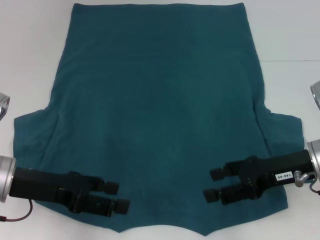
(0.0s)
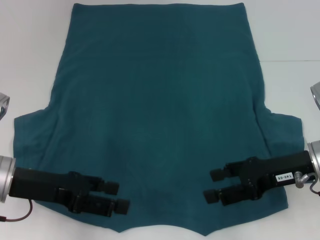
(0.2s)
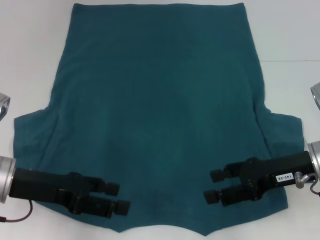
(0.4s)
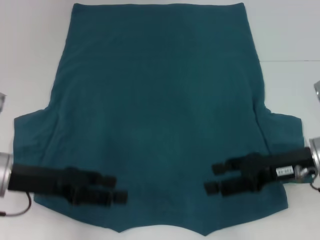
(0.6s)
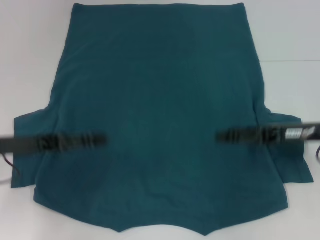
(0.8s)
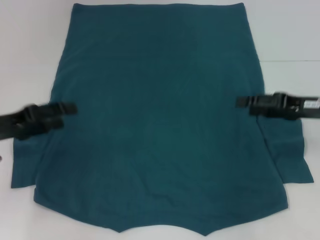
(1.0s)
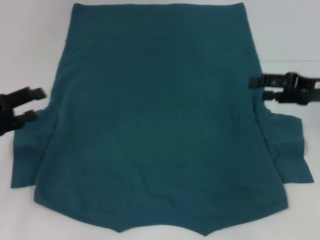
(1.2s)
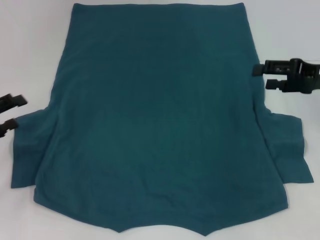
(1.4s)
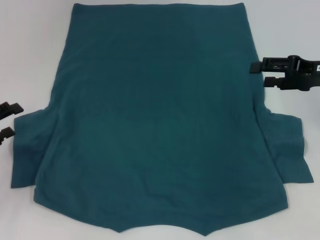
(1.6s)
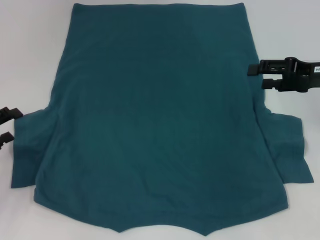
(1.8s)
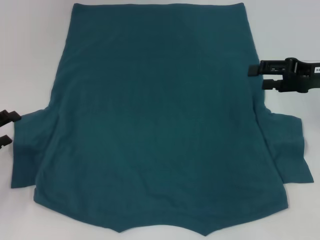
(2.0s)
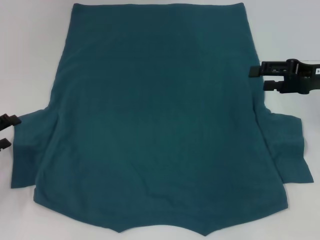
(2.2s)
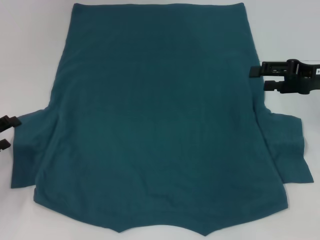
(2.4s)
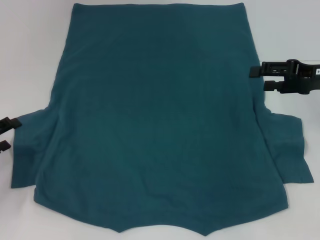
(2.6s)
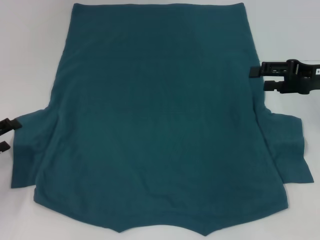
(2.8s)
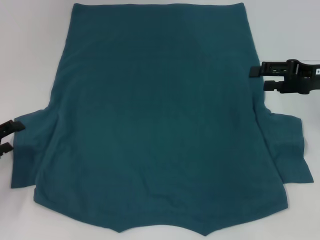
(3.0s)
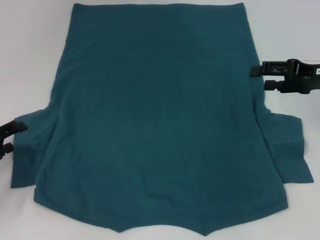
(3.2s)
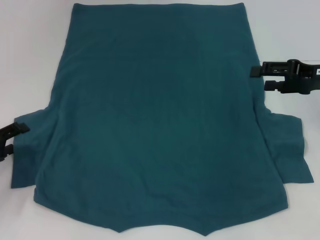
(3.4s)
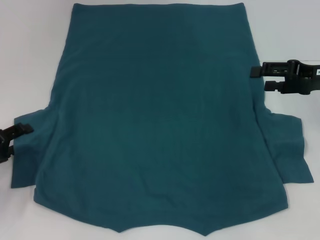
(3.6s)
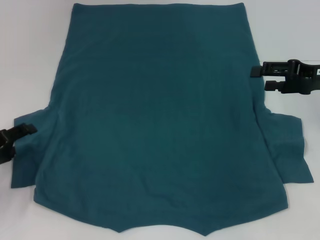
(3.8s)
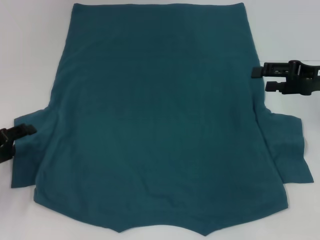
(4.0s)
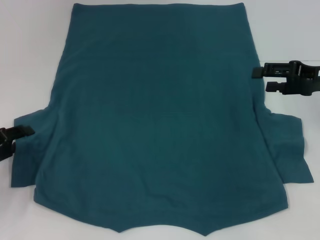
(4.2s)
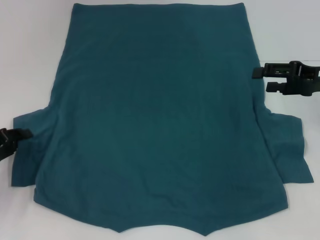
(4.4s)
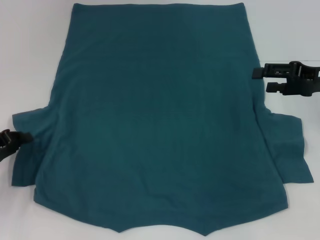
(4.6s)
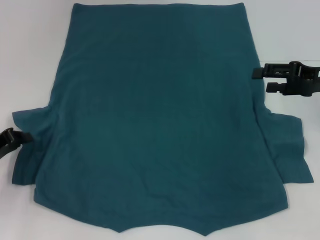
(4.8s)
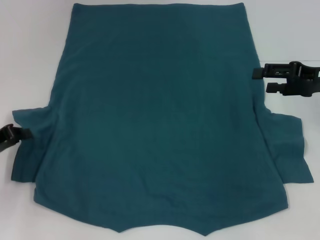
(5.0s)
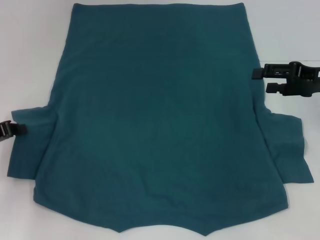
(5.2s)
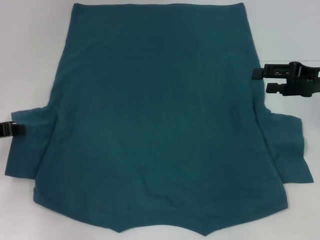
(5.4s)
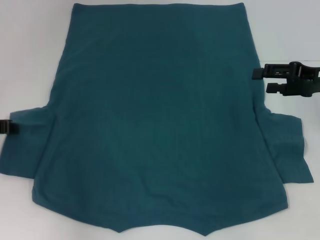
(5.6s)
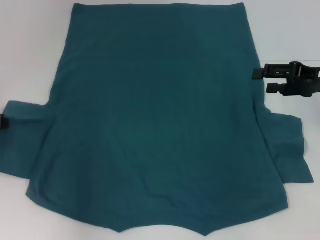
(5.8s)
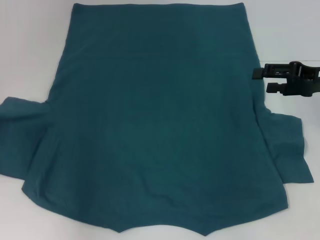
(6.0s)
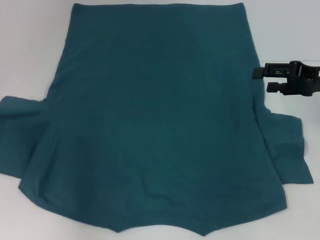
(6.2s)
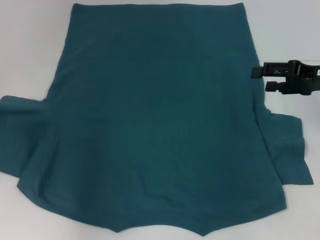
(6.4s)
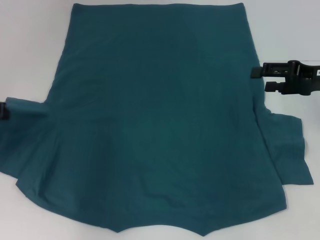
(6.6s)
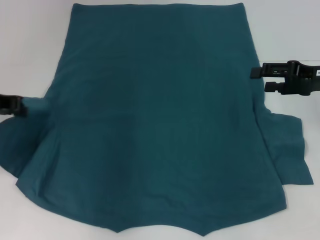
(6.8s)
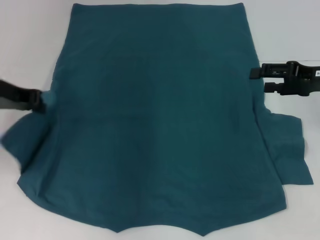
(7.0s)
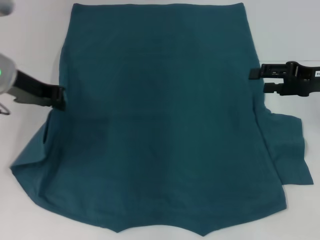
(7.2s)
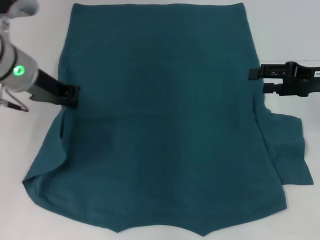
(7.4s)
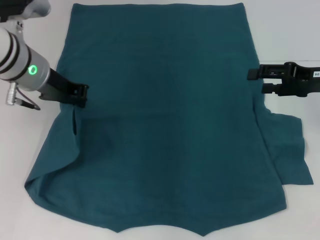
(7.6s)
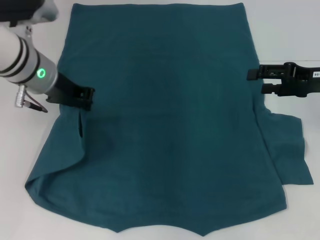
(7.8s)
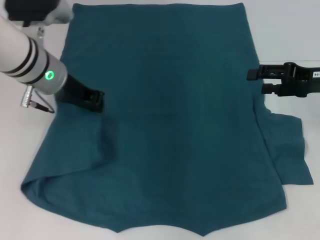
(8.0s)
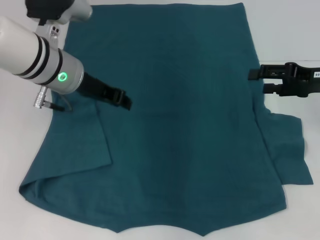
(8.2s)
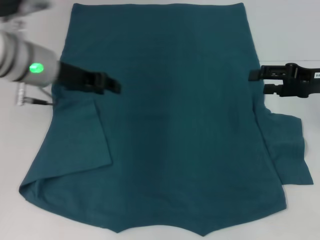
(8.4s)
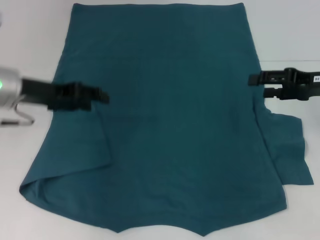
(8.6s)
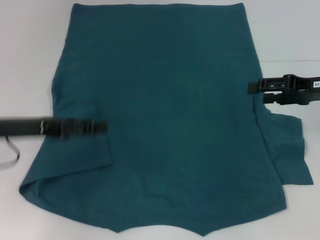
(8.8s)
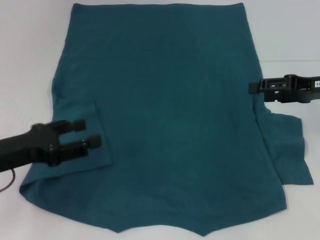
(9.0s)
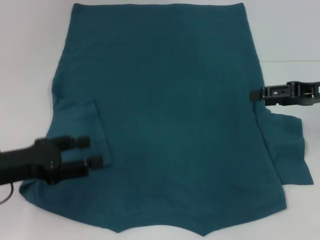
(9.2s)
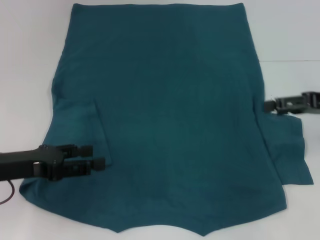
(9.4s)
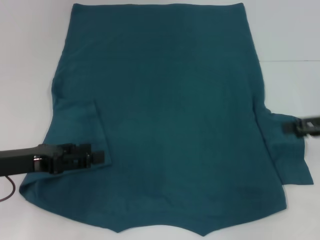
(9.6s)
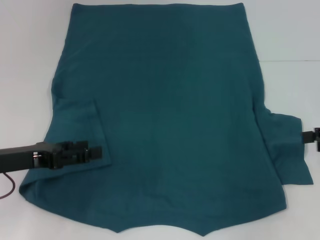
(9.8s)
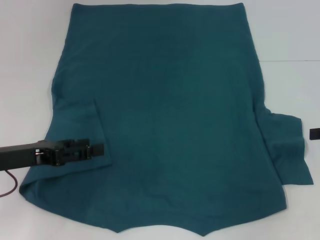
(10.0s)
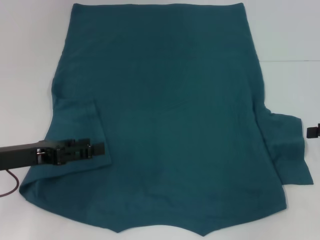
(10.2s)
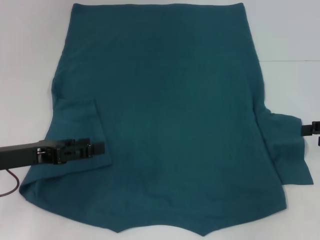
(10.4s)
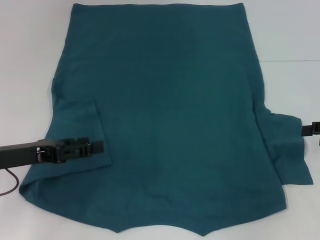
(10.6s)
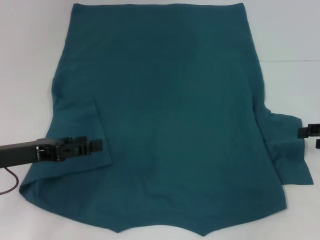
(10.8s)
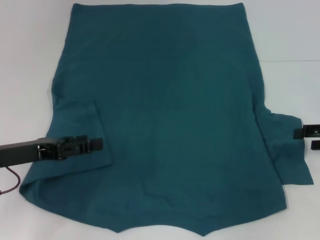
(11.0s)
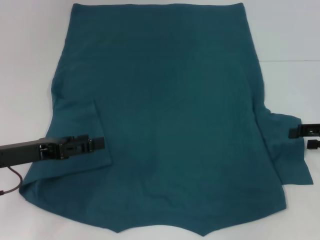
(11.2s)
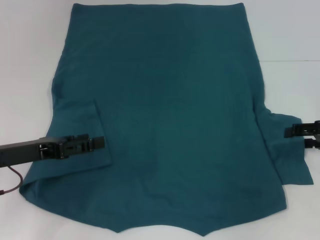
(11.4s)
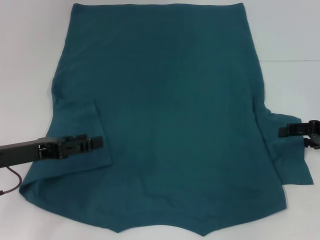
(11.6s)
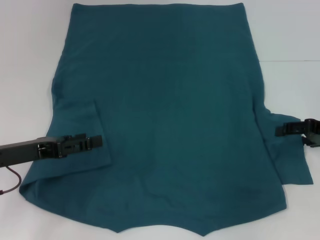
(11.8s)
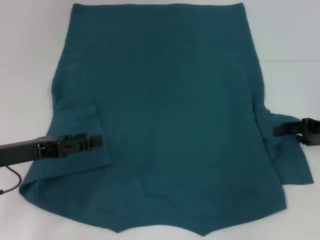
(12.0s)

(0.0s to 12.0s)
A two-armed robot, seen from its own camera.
Step, 0.0s - 8.0s: Fold the bottom left sleeve with your left hand.
0.0s - 1.6s: The right gripper goes roughly 10 cm forward, to the right and upward. Meanwhile the left gripper goes roughly 10 cm to the left.
1.6s - 3.0s: The grippers make only small movements.
3.0s - 4.4s: The left gripper closes.
4.4s - 6.0s: The left gripper heads upward and forward, covering some 10 cm, and closes.
6.0s - 7.6s: The left gripper goes about 15 cm to the right.
7.6s - 9.0s: The left gripper goes about 20 cm backward, to the left and downward, and opens.
9.0s - 10.4s: The right gripper goes some 10 cm to the right and backward.
10.4s - 12.0s: The right gripper ends up some 5 cm from where it was.

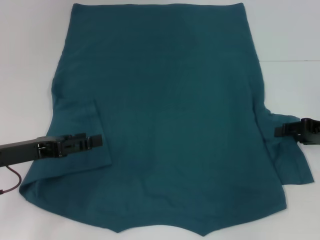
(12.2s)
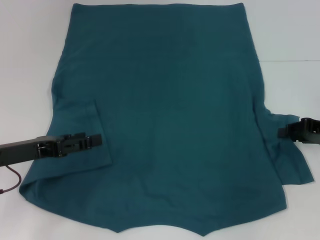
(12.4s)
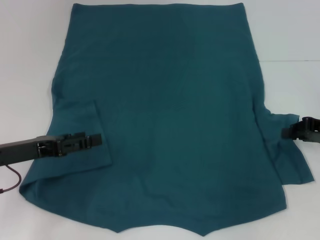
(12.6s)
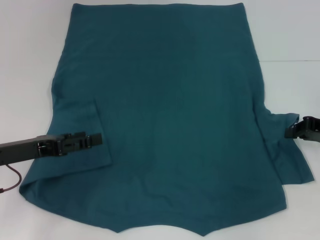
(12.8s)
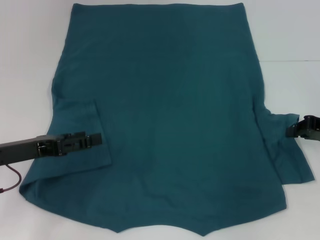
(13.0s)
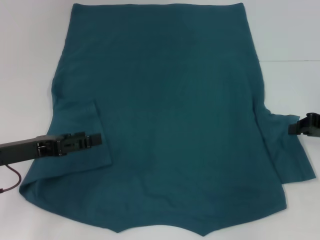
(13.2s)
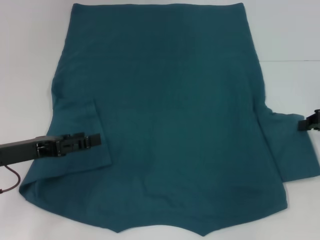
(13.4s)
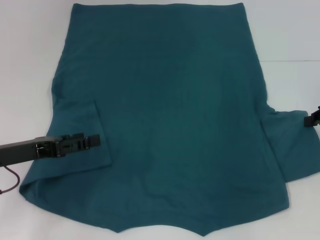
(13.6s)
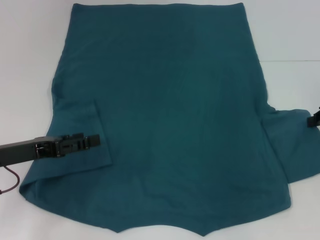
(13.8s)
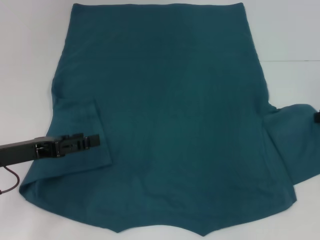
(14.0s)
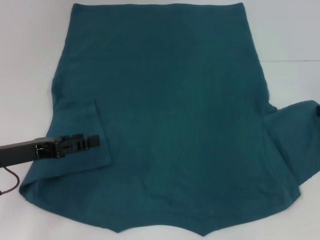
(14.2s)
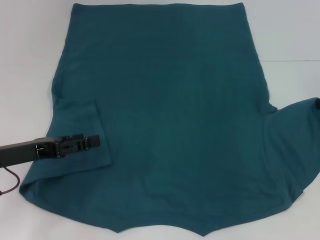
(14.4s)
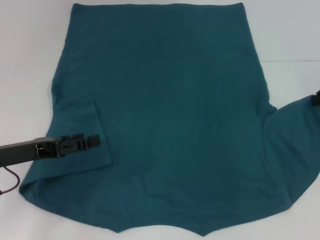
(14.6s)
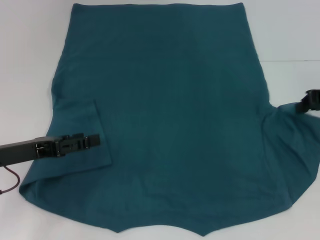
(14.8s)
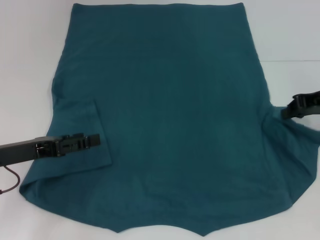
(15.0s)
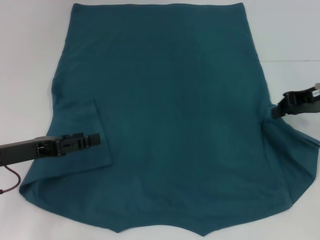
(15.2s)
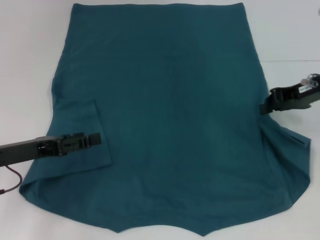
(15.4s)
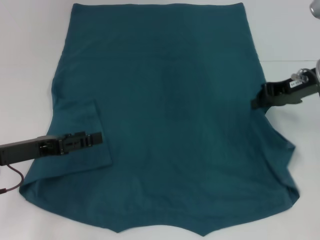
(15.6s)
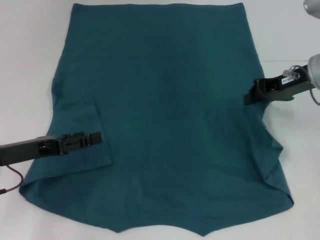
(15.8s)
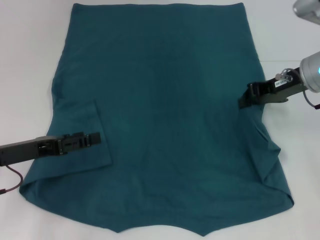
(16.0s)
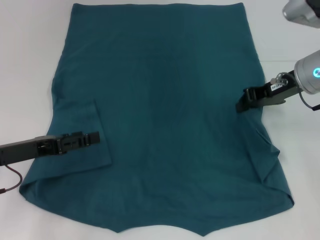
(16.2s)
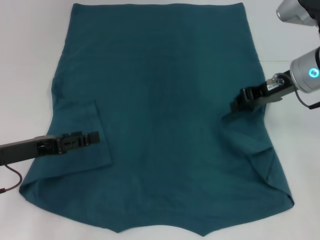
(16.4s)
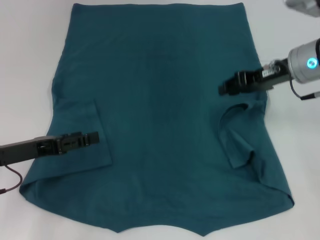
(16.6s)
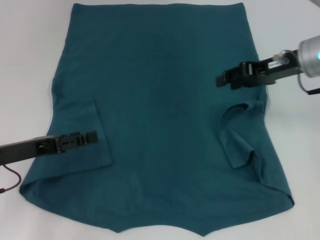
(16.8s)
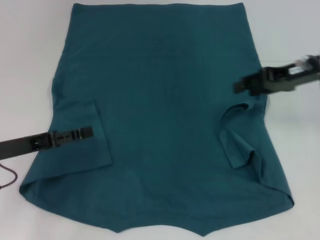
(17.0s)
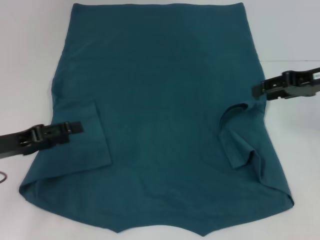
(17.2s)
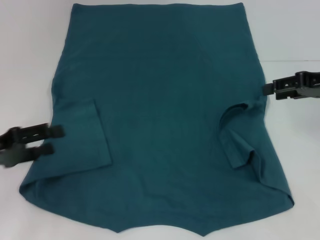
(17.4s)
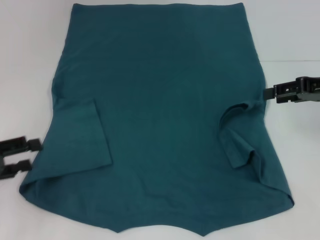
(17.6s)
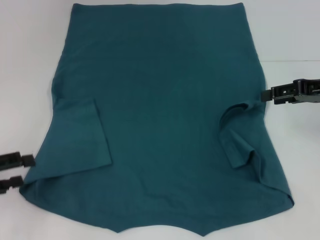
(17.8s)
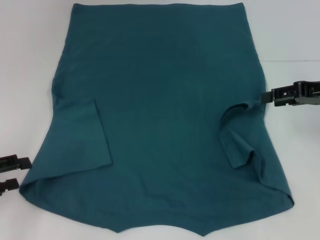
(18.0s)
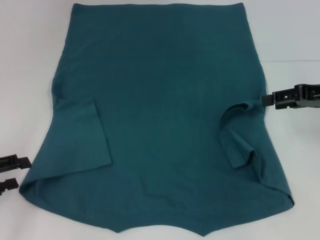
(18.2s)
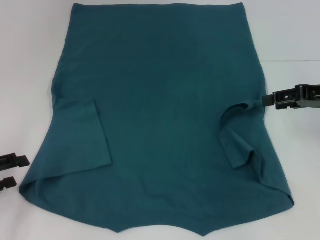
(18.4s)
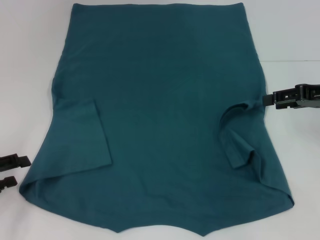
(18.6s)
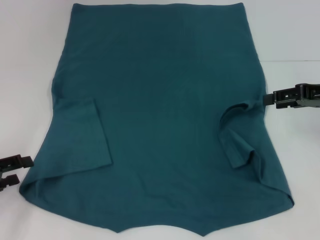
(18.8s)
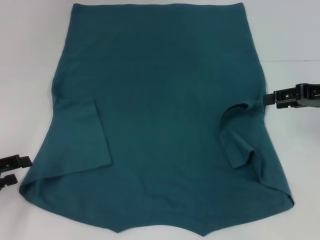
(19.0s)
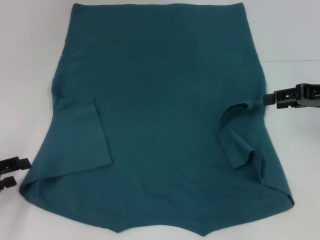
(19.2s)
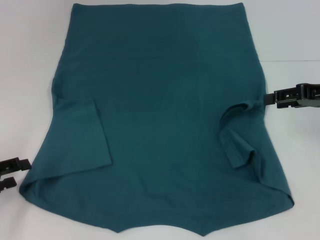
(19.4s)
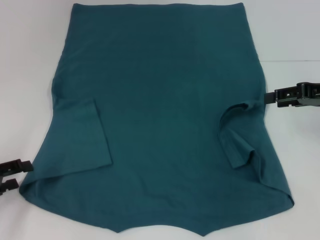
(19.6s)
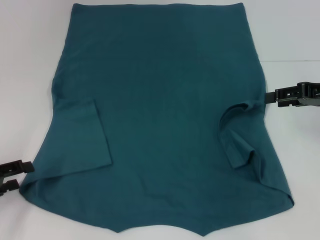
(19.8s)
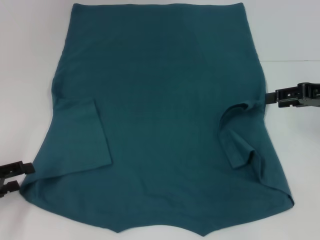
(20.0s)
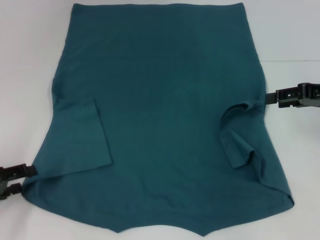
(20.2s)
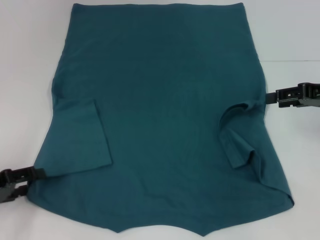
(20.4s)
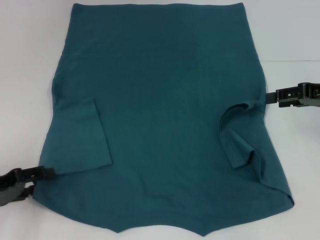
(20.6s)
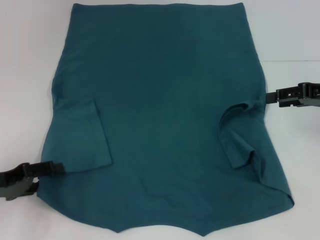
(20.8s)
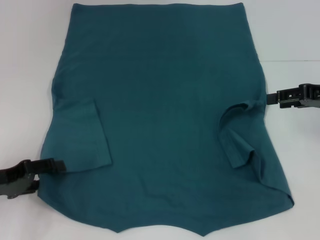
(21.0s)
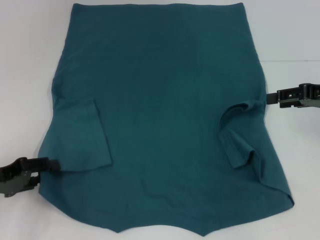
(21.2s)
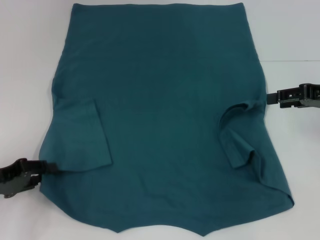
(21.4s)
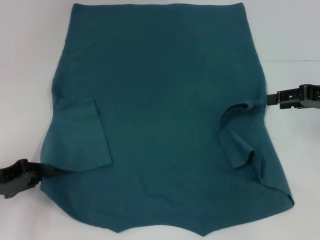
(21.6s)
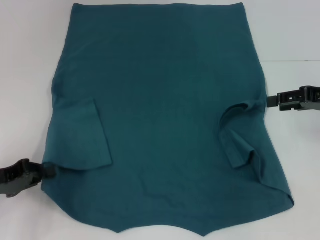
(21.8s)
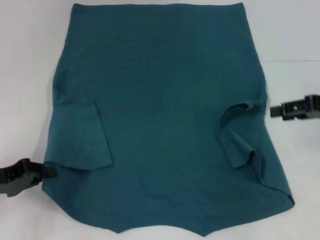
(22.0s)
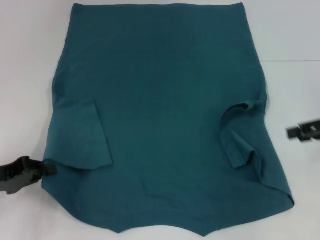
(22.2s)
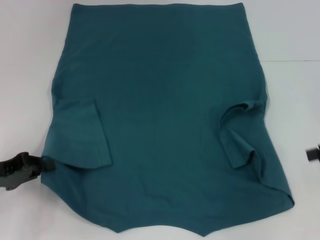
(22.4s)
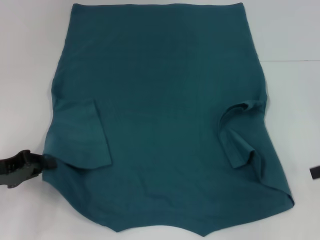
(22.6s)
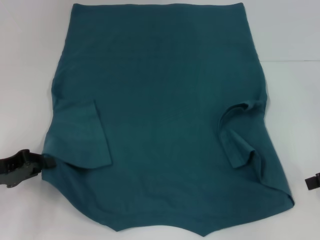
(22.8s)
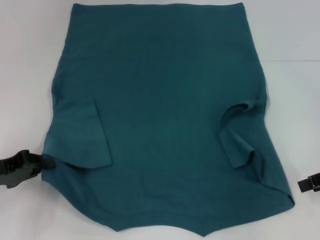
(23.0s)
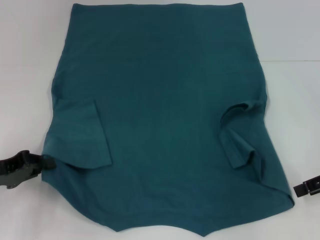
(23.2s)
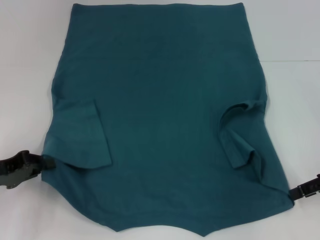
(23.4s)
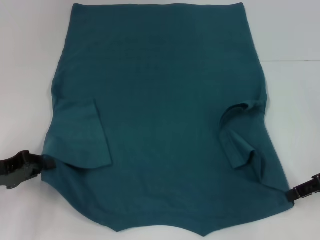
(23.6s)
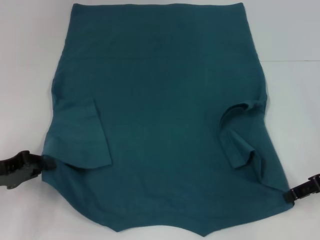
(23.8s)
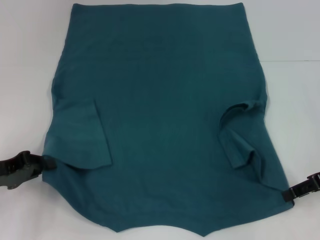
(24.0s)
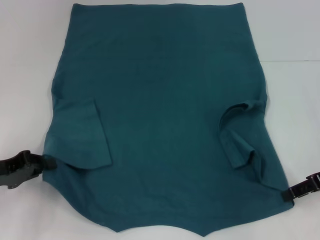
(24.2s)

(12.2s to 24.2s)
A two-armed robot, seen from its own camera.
Step, 12.2s - 16.6s: Fold the bottom right sleeve to the right.
Step, 16.8s - 22.2s: Grab the bottom left corner with your left hand.
12.2s - 13.8s: The right gripper closes up.
13.8s - 15.2s: The right gripper shifts about 5 cm to the left.
15.2s - 16.6s: The right gripper moves to the left, roughly 5 cm.
16.6s - 18.2s: The right gripper is displaced to the right by approximately 10 cm, and opens its fingers, while the left gripper goes approximately 10 cm to the left.
18.2s - 21.2s: There are only small adjustments of the grippers.
21.2s - 22.6s: The left gripper closes up, while the right gripper travels backward by approximately 5 cm.
22.6s - 24.2s: The right gripper heads to the left, covering approximately 5 cm.
